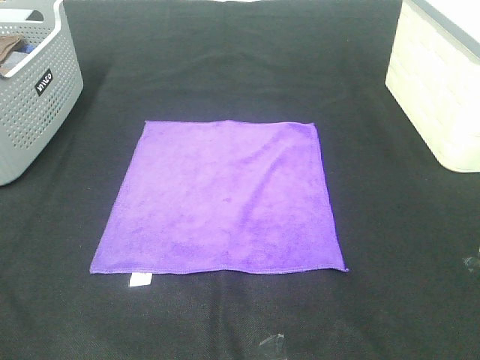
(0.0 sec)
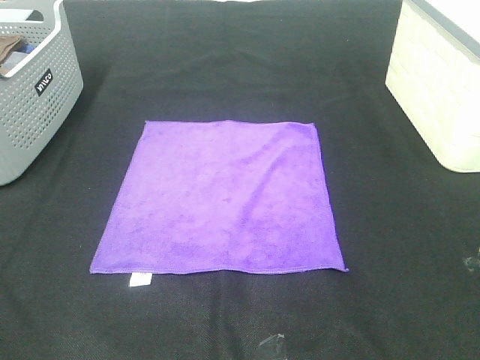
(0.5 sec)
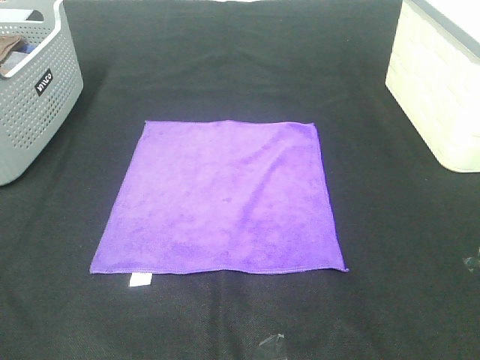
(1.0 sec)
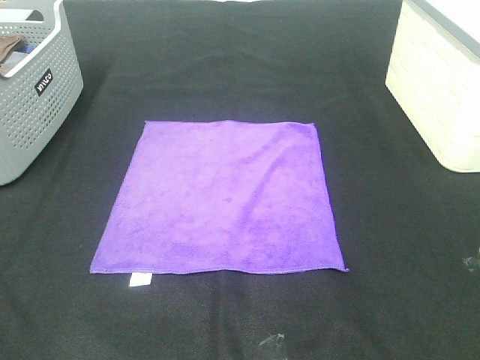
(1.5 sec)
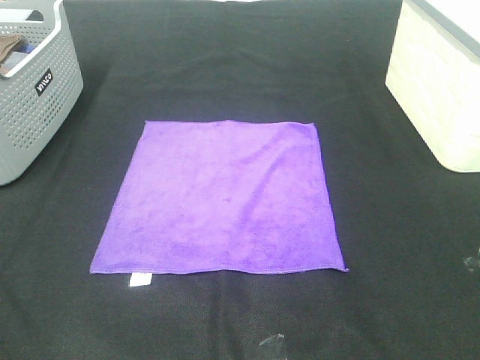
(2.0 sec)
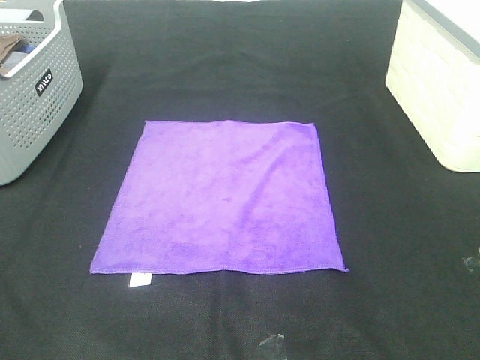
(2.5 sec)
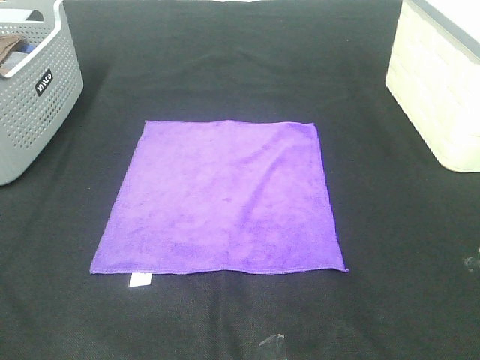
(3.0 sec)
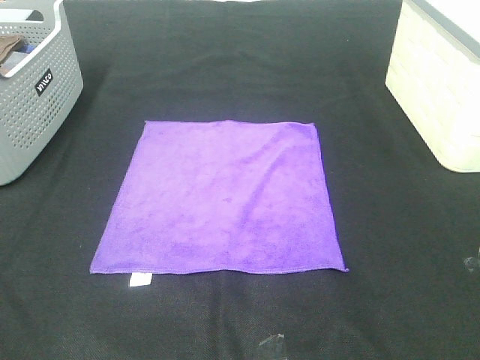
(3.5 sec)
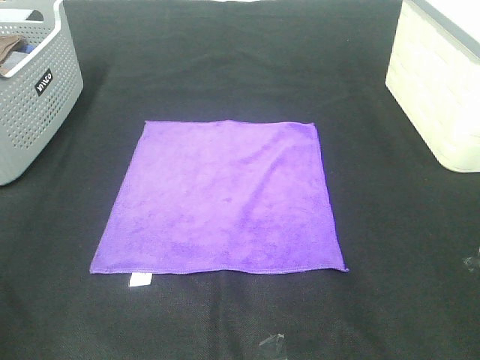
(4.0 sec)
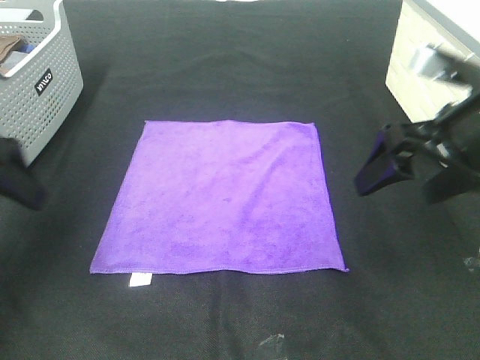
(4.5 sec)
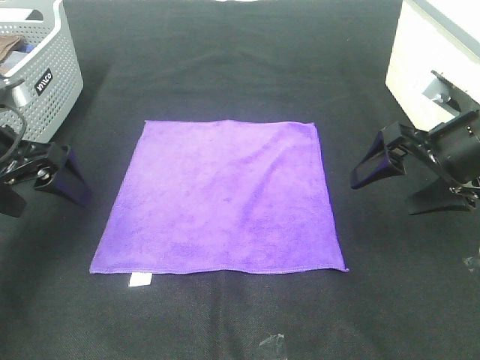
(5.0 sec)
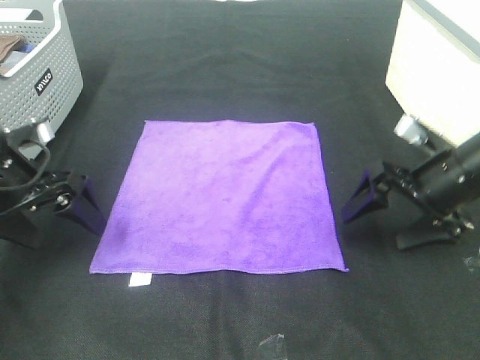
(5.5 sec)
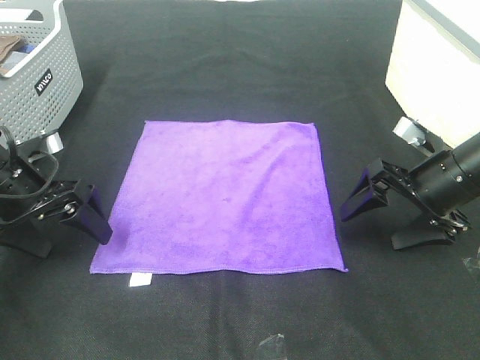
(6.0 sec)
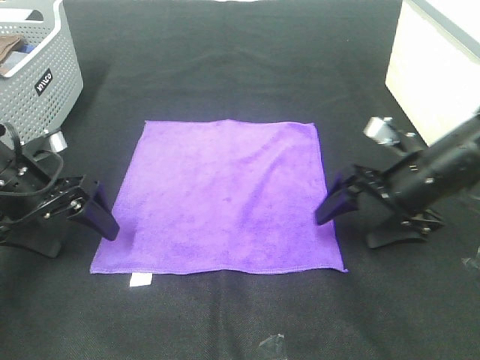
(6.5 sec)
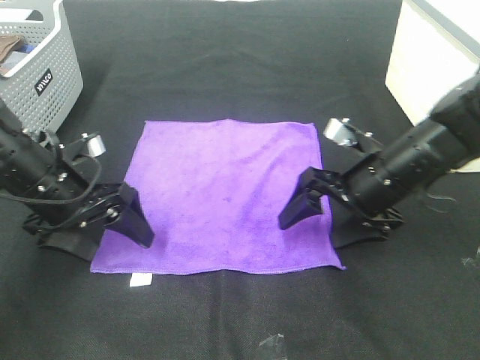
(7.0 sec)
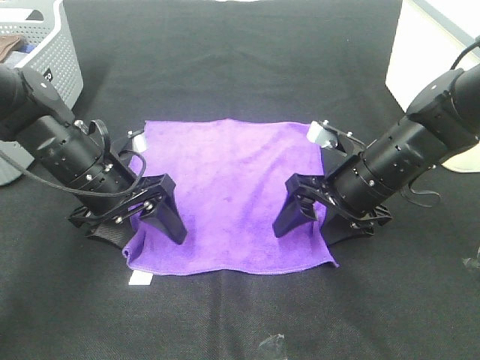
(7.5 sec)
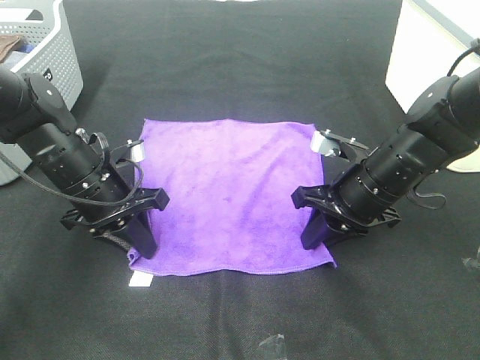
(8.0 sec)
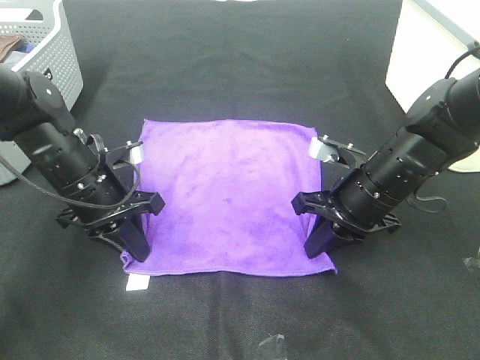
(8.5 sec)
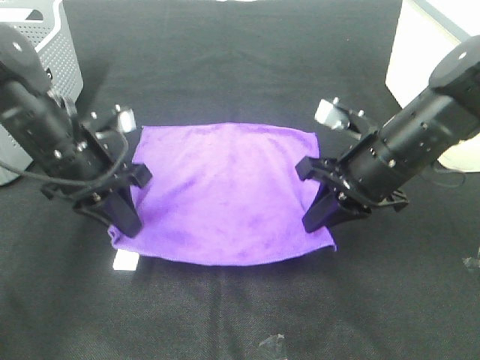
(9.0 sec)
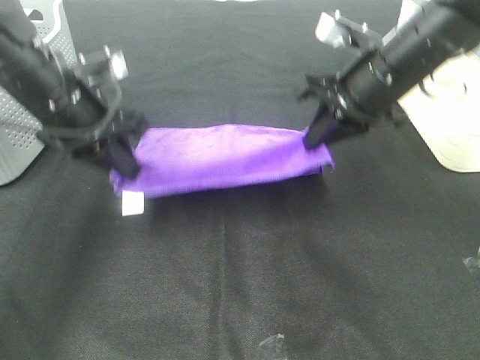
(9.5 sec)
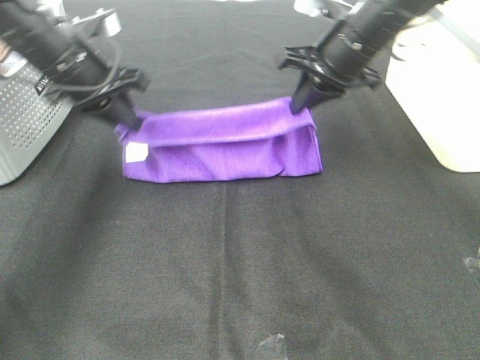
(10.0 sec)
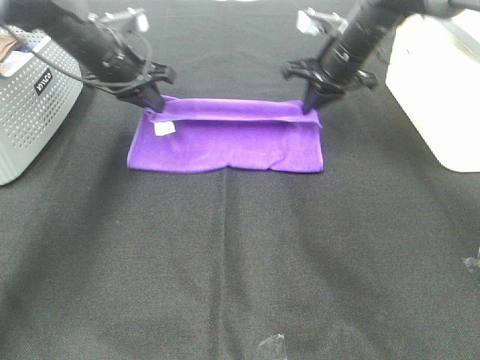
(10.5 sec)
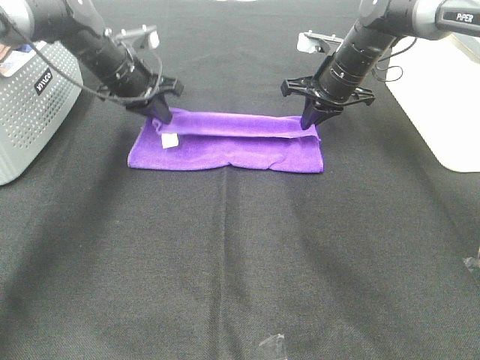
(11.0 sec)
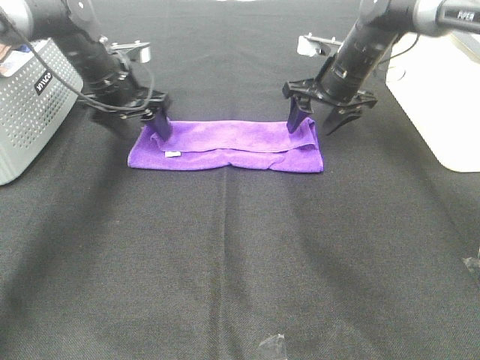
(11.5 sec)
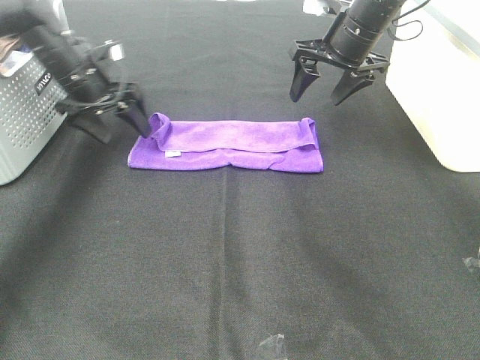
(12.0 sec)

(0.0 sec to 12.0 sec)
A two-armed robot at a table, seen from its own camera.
Task of the whole recording: Fold towels.
Step, 0.0 sec - 8.0 sec: Left hand: grab the bottom left corner of purple towel.
Step, 0.0 sec - 8.0 sec: Right hand: grab the bottom right corner of purple towel.
Step, 8.5 sec - 11.0 sec: Left hand: fold the purple towel up.
Step, 8.5 sec - 11.0 sec: Right hand: fold the purple towel up.
0.0 sec - 2.0 sec: Both grippers stay about where they are.
4.0 sec - 6.0 sec: Both grippers move downward and forward, approximately 30 cm.
6.0 sec - 8.0 sec: The left gripper travels to the right by roughly 10 cm, and closes up; the right gripper heads to the left, covering about 10 cm, and closes up.
8.0 sec - 10.0 sec: The right gripper shifts roughly 20 cm forward and upward. Meanwhile the left gripper moves upward and forward, about 15 cm.
10.0 sec - 12.0 sec: The right gripper shifts about 5 cm forward, and opens up; the left gripper goes about 10 cm forward and downward, and opens its fingers.

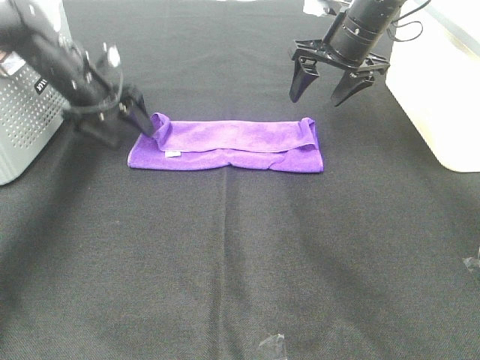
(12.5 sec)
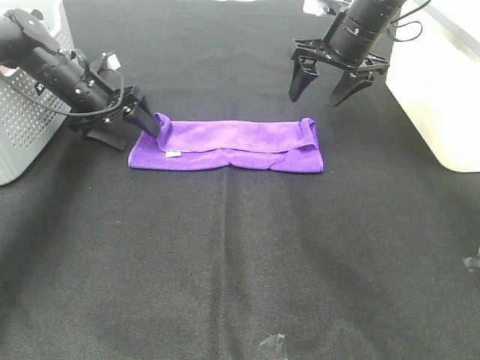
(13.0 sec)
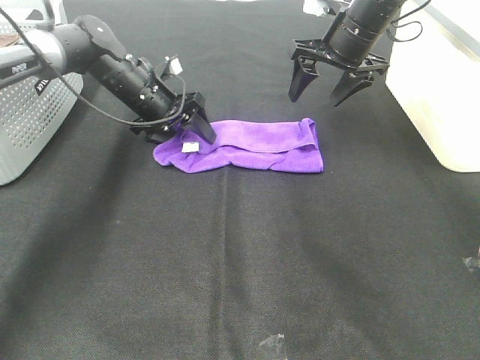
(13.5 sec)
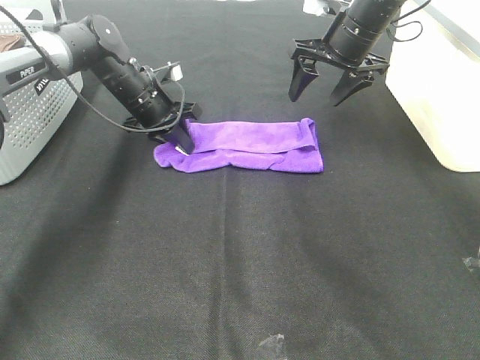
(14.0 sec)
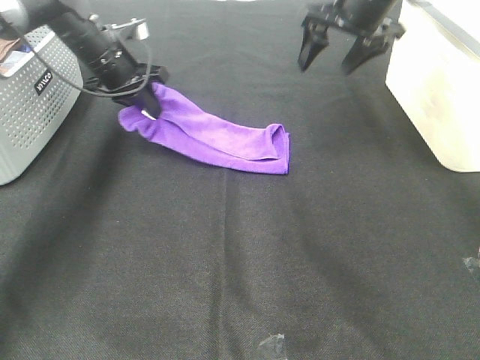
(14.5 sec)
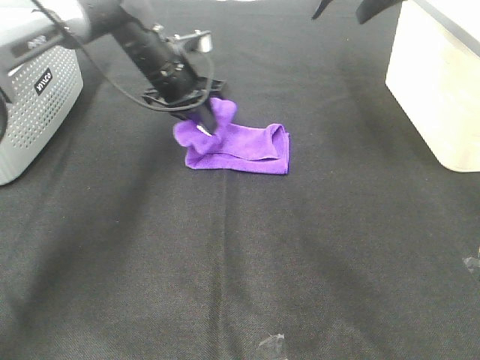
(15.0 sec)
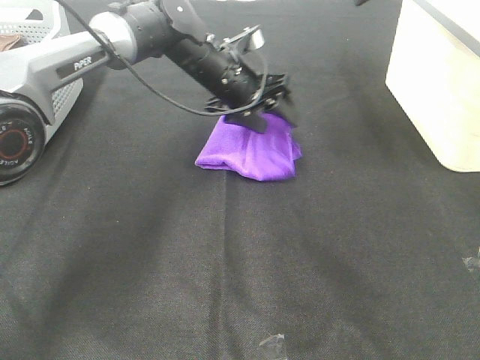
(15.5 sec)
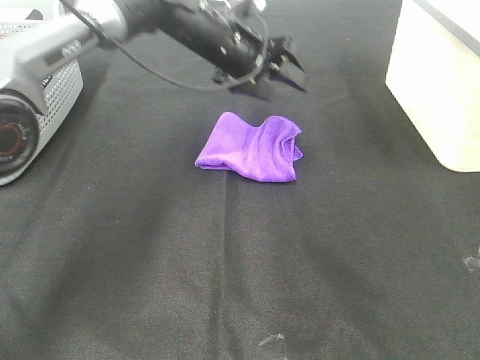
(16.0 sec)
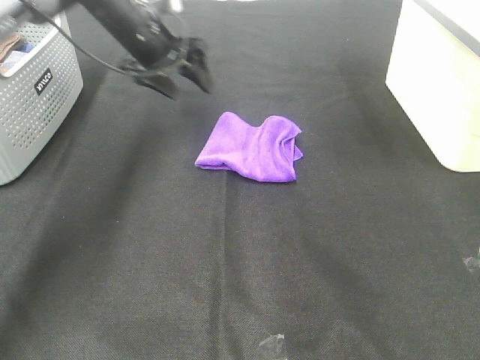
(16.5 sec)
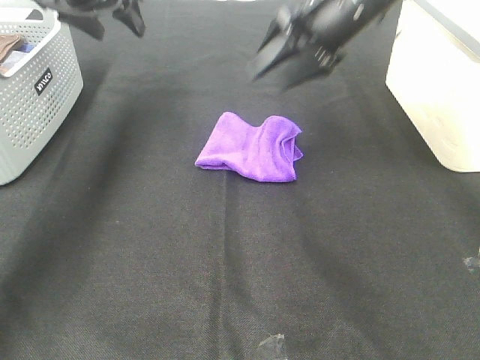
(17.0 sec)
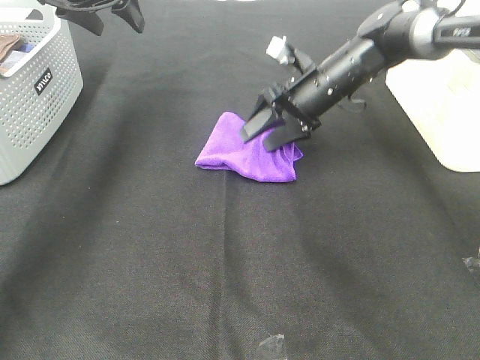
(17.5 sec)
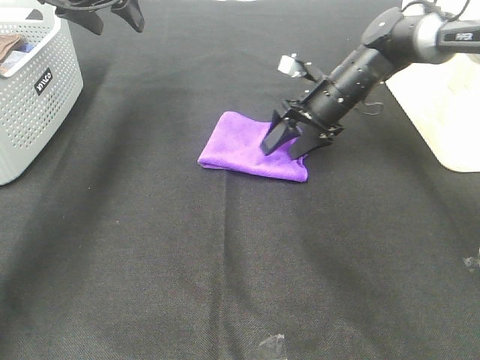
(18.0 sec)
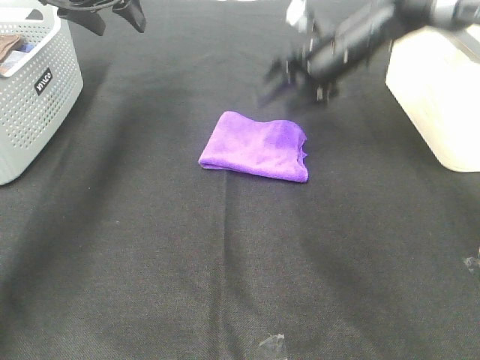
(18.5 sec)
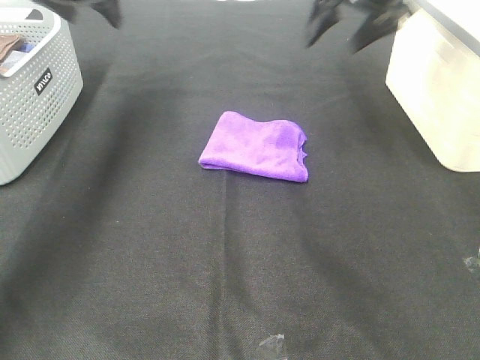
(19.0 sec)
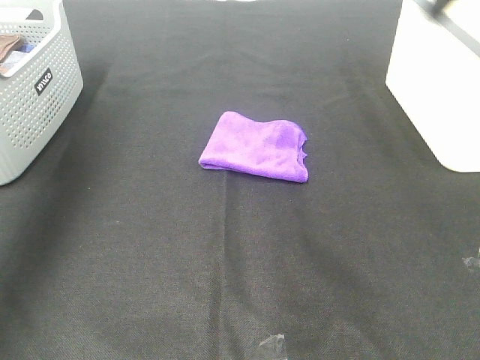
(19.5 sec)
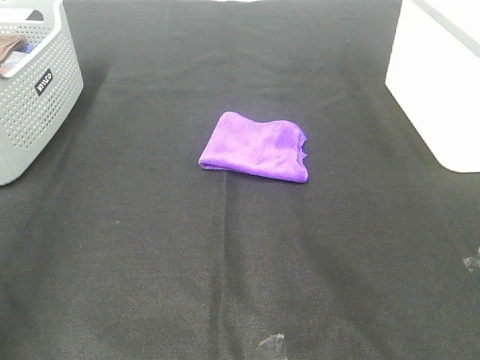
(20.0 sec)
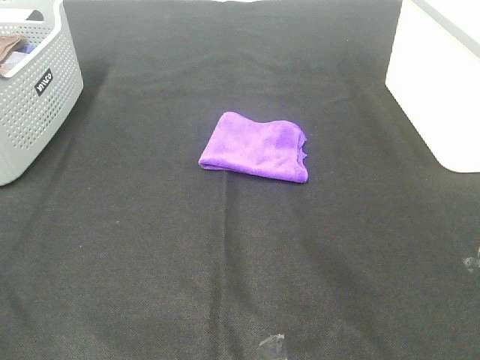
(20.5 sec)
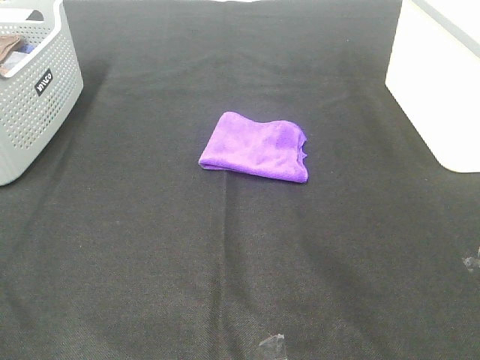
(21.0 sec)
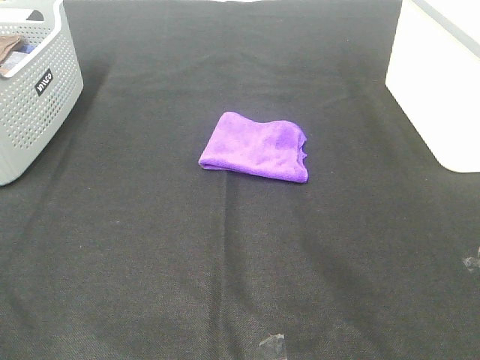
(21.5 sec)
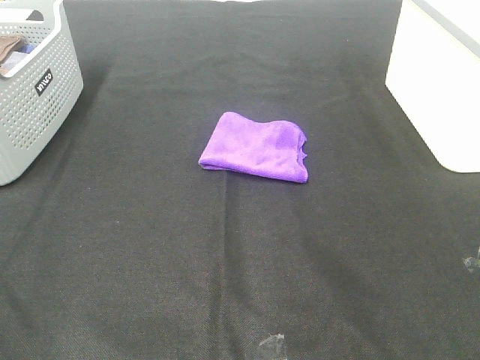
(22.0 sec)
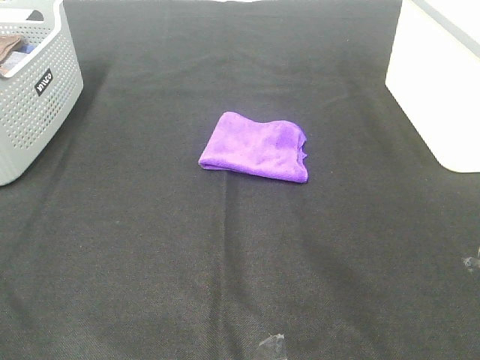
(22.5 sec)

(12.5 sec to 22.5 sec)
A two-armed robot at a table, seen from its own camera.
Task of the whole recording: Fold towels.
Step, 12.5 sec - 15.0 sec: Left hand: fold the purple towel from left to right.
Step, 15.5 sec - 17.5 sec: Right hand: adjust the purple towel.
12.5 sec - 14.5 sec: The left gripper goes roughly 5 cm to the right, and closes its fingers. Meanwhile the right gripper shifts approximately 5 cm upward.
14.5 sec - 16.5 sec: The left gripper moves approximately 15 cm to the right and comes back, and opens up. The right gripper goes roughly 10 cm upward.
16.5 sec - 18.5 sec: The right gripper is displaced downward by about 20 cm; the left gripper moves upward and to the left, some 10 cm.
18.5 sec - 20.5 sec: The two grippers go roughly 50 cm backward.
